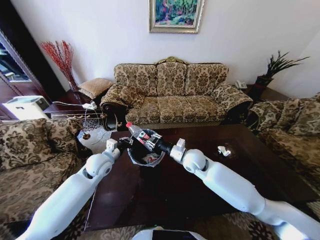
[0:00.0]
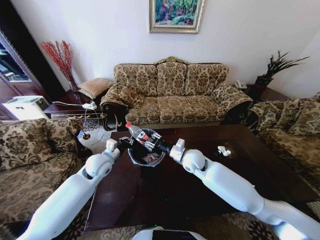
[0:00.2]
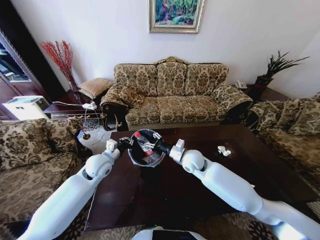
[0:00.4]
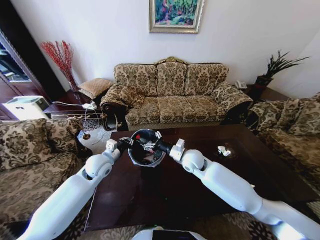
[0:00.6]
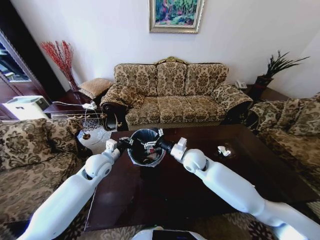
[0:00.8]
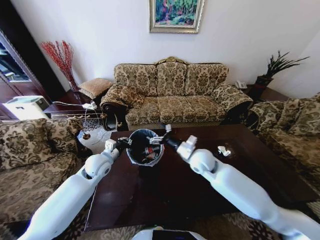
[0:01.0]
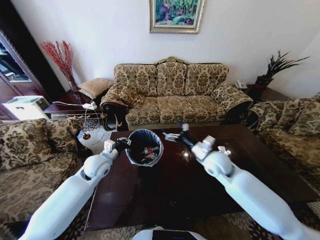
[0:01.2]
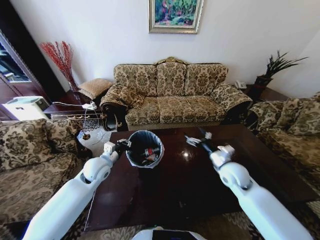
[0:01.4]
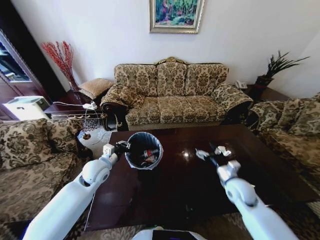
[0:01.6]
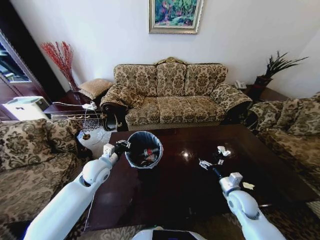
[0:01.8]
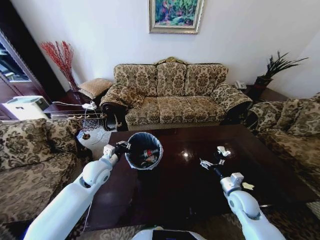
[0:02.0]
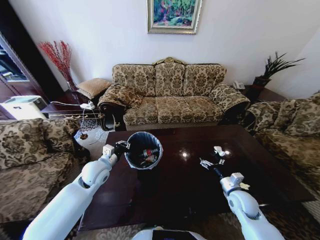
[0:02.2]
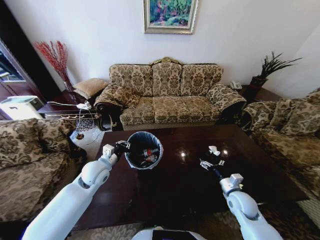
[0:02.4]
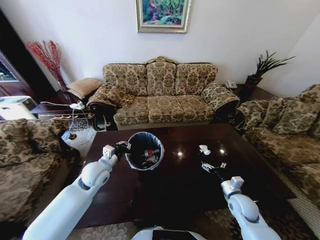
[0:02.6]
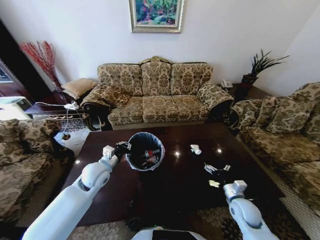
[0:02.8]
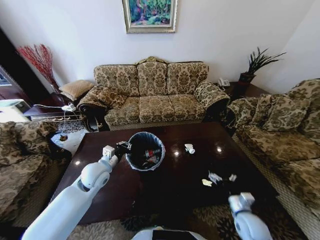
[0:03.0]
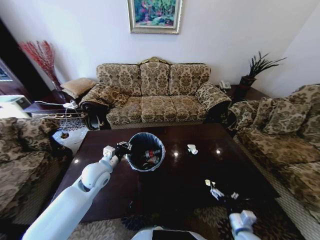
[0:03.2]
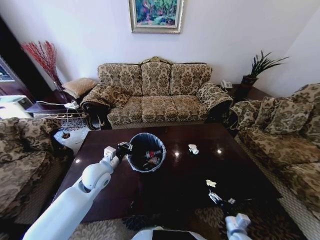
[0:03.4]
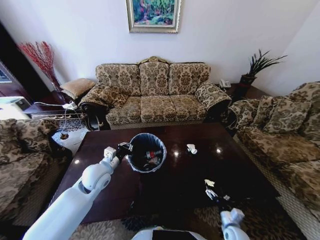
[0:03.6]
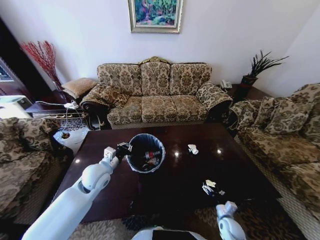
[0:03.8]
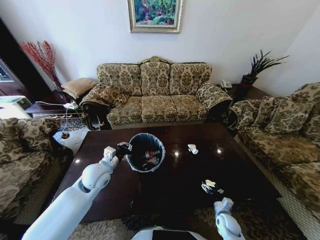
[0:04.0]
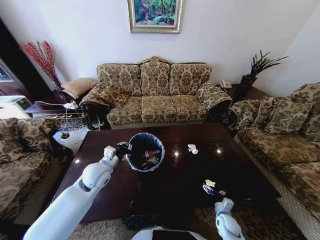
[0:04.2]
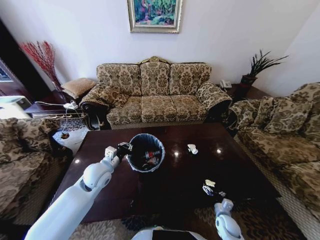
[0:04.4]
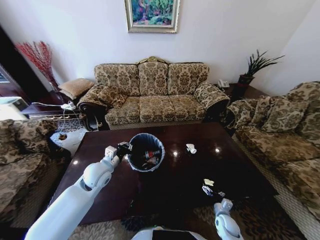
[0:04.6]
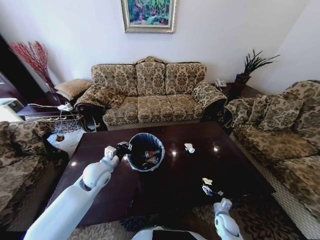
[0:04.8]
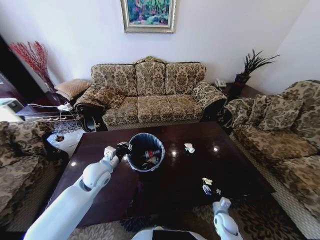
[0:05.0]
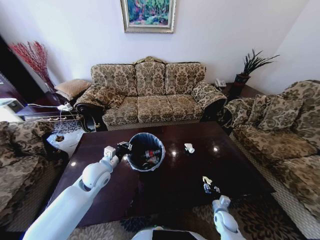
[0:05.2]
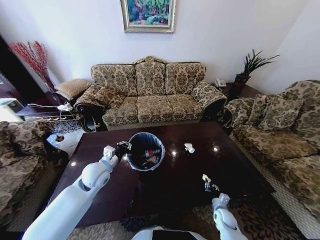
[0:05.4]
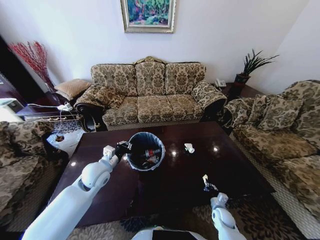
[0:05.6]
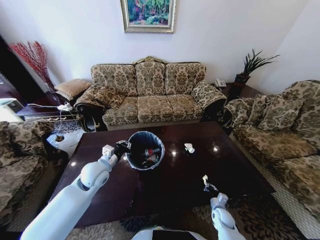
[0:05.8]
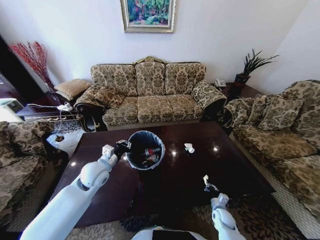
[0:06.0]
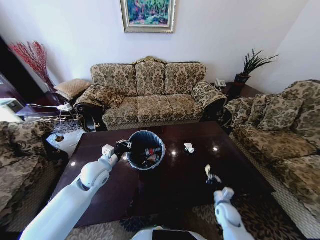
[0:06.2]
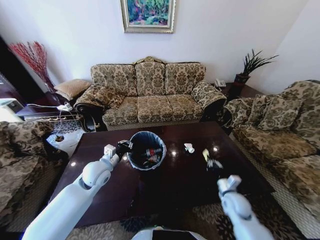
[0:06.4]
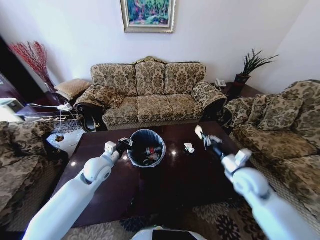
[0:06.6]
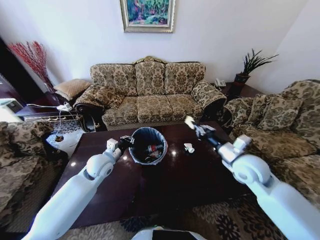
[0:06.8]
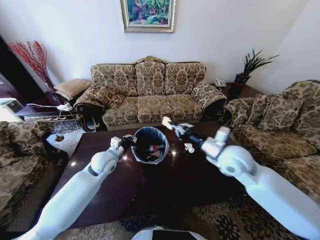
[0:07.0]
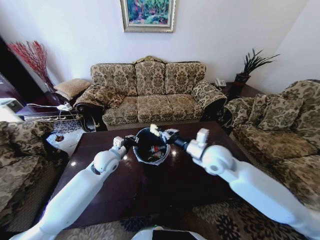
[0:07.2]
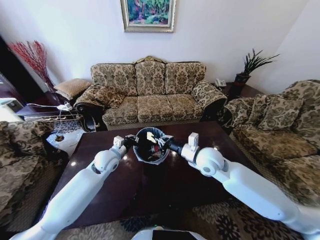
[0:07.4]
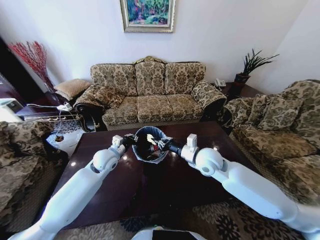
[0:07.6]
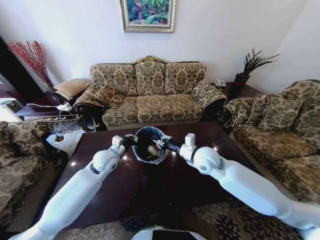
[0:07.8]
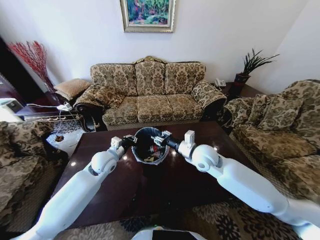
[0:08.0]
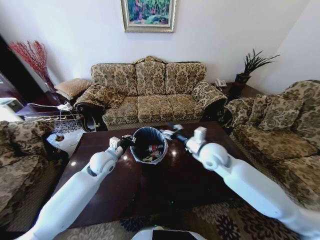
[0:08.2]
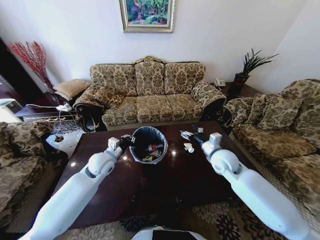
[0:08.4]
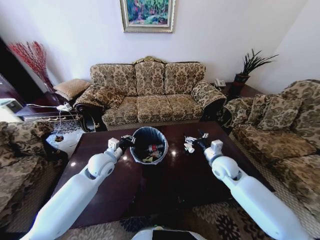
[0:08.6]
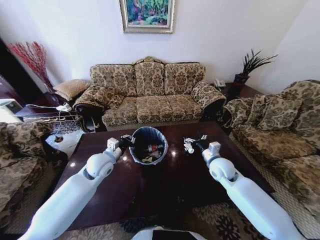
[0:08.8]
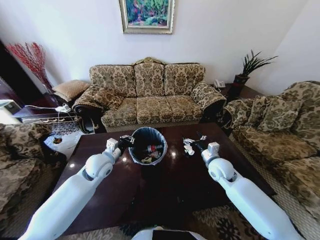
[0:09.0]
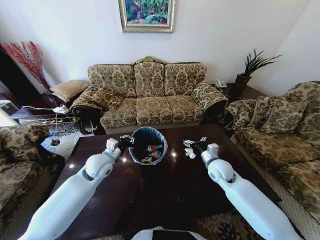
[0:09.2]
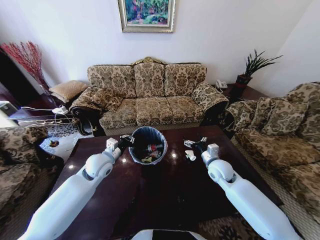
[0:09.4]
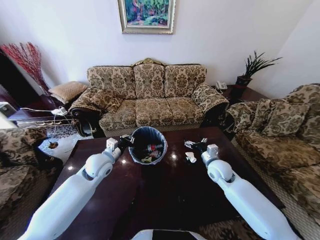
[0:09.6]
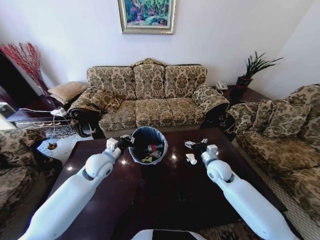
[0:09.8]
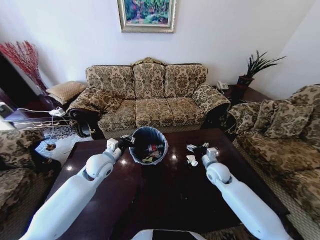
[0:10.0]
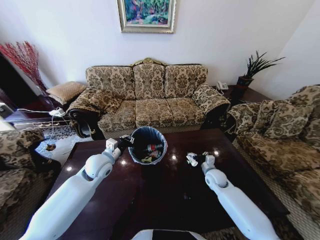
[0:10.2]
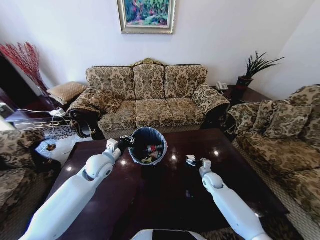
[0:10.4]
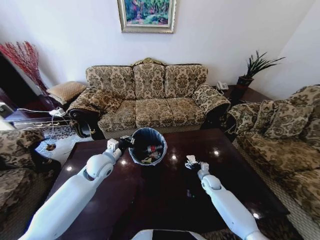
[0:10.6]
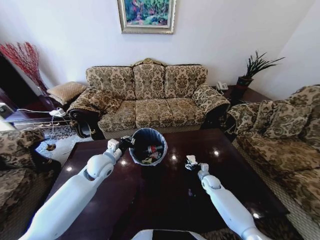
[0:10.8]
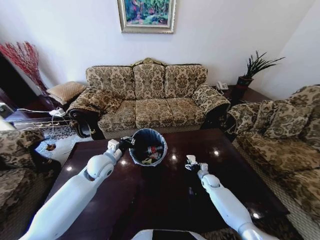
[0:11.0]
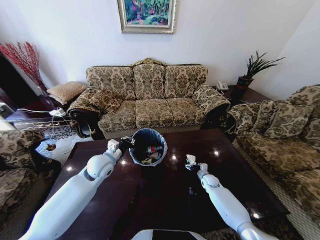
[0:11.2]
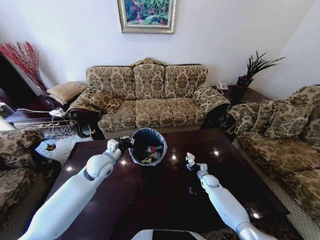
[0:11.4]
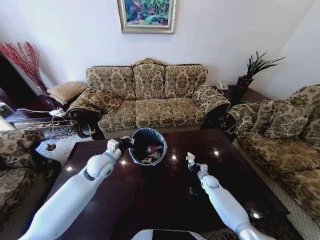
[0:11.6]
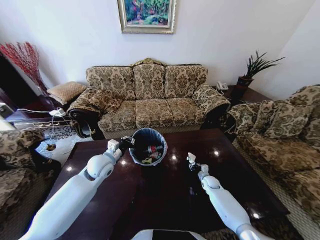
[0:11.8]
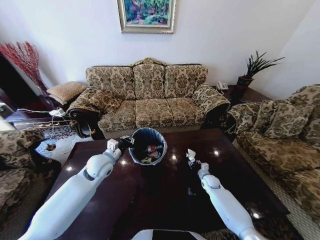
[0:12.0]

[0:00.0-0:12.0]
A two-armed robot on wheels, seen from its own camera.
Task of the whole recording: Move to the front of the table and place the trash on the table into the trash bin.
0:00.0 to 0:01.6: The right gripper goes some 20 cm to the right, backward and downward, and opens its fingers.
0:01.6 to 0:03.0: The right gripper shifts about 10 cm backward and downward.
0:03.0 to 0:04.4: The right gripper is displaced downward by approximately 15 cm.
0:04.4 to 0:06.0: The right gripper closes.
0:06.0 to 0:07.6: The left gripper shifts roughly 5 cm forward, while the right gripper shifts roughly 40 cm upward and to the left.
0:07.6 to 0:09.0: The right gripper shifts approximately 10 cm downward and to the right, and opens.
0:09.0 to 0:10.4: The right gripper moves downward, approximately 20 cm.
0:10.4 to 0:12.0: The right gripper moves roughly 5 cm, and closes its fingers.

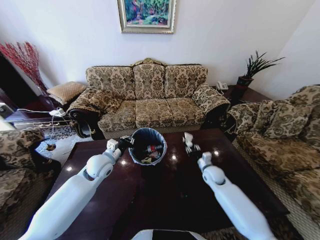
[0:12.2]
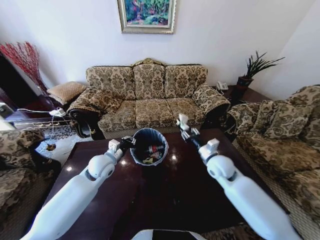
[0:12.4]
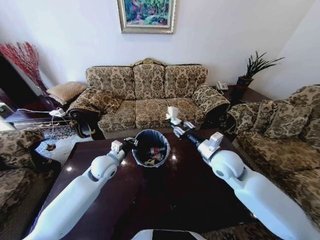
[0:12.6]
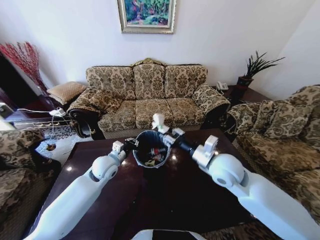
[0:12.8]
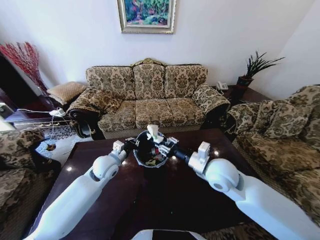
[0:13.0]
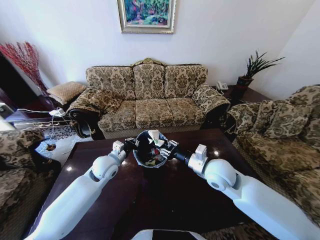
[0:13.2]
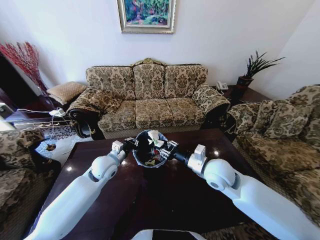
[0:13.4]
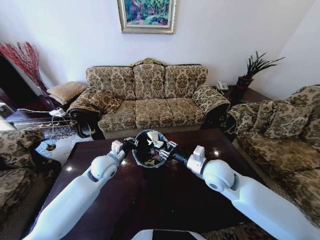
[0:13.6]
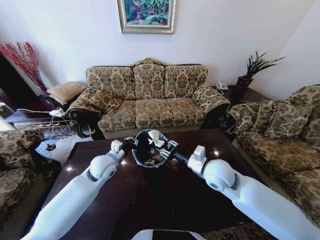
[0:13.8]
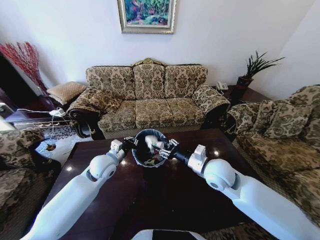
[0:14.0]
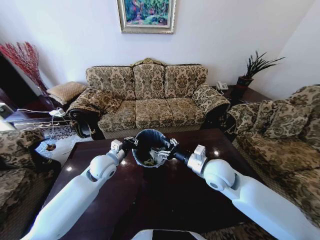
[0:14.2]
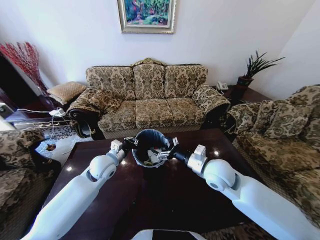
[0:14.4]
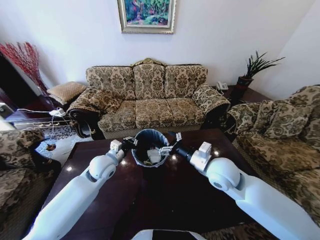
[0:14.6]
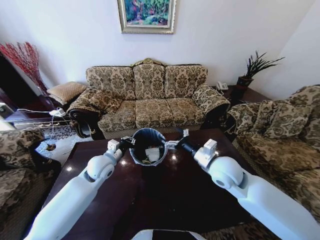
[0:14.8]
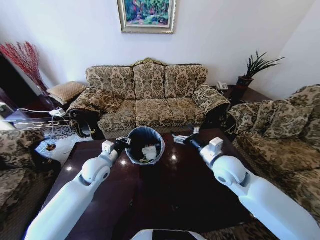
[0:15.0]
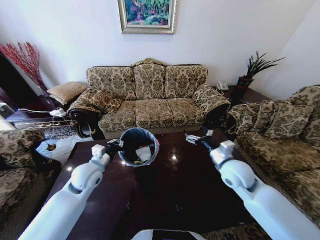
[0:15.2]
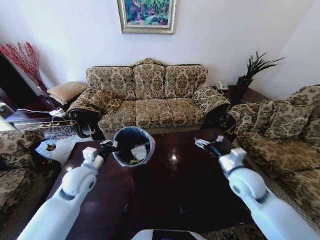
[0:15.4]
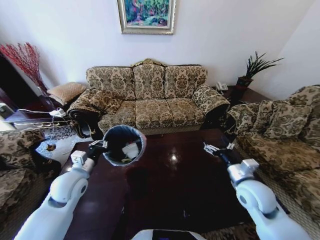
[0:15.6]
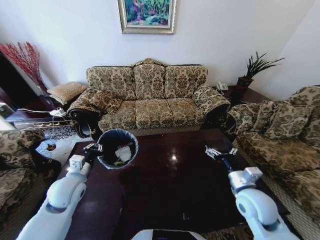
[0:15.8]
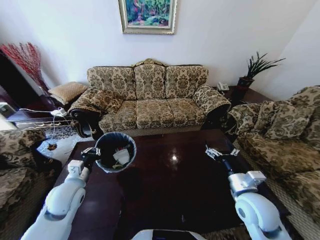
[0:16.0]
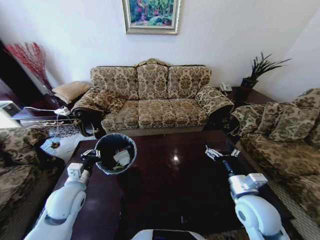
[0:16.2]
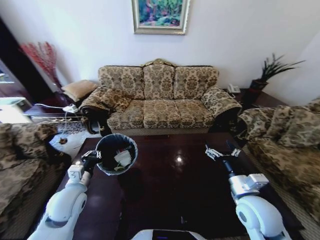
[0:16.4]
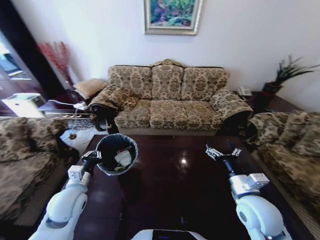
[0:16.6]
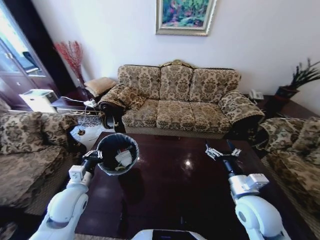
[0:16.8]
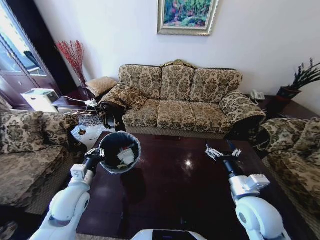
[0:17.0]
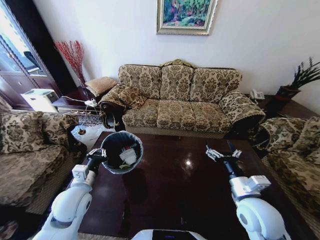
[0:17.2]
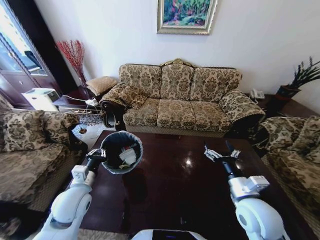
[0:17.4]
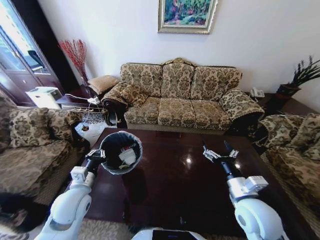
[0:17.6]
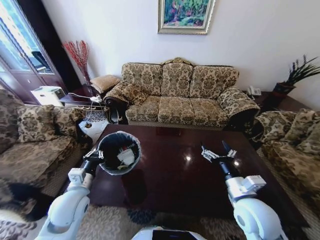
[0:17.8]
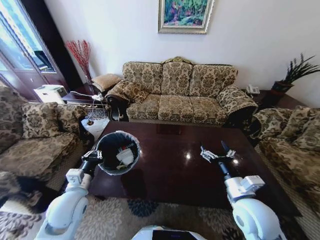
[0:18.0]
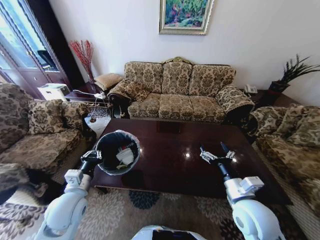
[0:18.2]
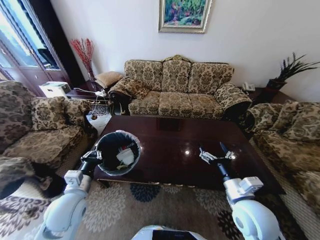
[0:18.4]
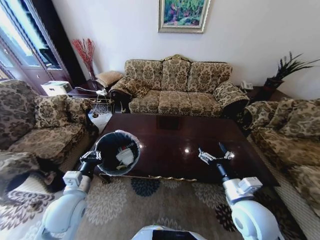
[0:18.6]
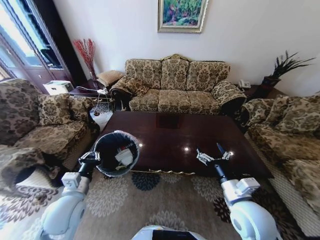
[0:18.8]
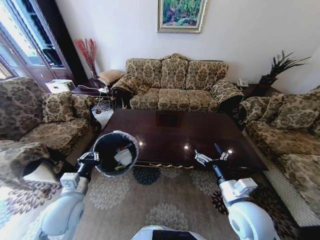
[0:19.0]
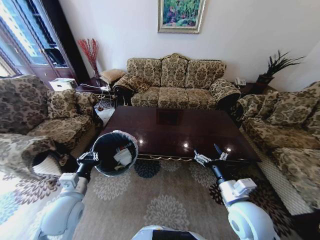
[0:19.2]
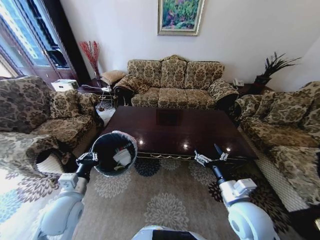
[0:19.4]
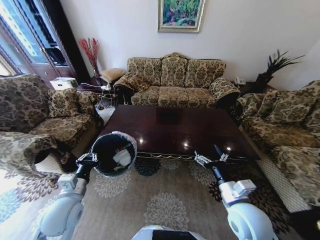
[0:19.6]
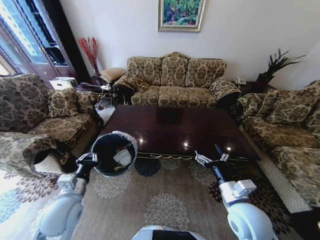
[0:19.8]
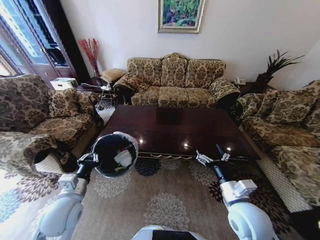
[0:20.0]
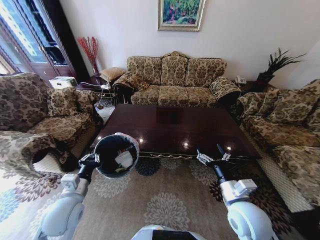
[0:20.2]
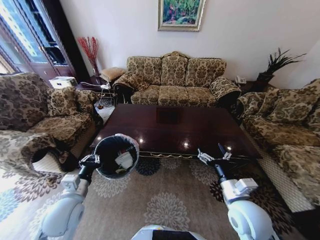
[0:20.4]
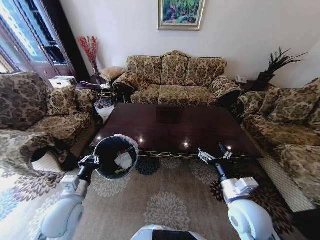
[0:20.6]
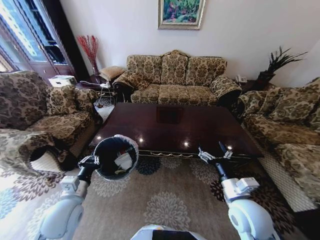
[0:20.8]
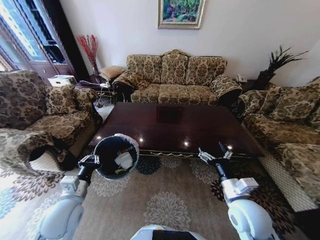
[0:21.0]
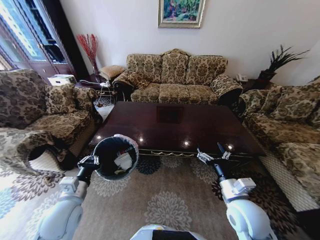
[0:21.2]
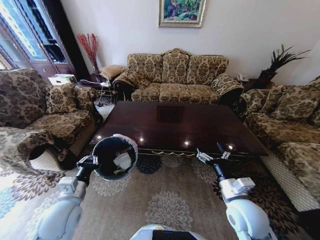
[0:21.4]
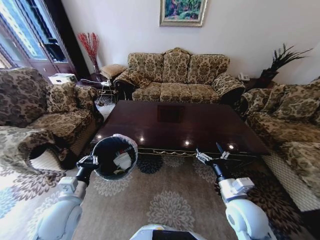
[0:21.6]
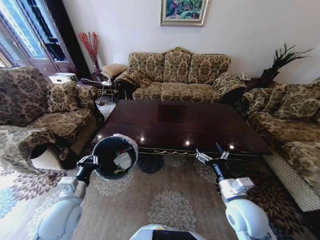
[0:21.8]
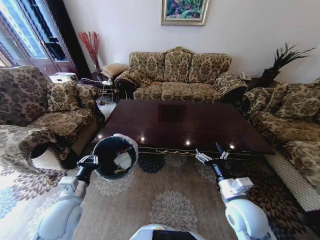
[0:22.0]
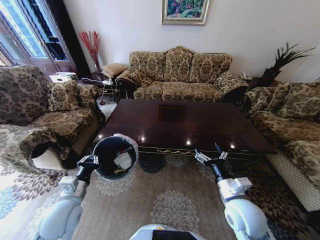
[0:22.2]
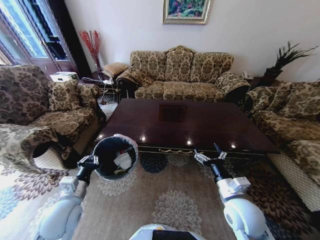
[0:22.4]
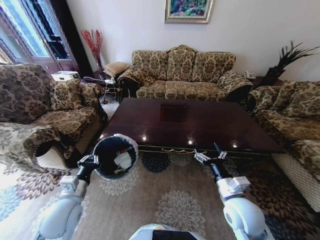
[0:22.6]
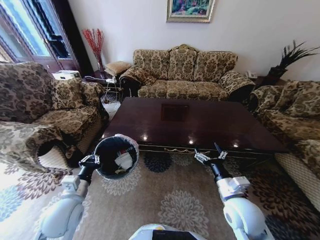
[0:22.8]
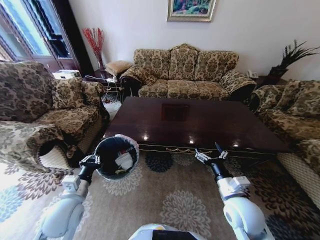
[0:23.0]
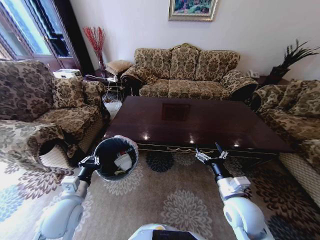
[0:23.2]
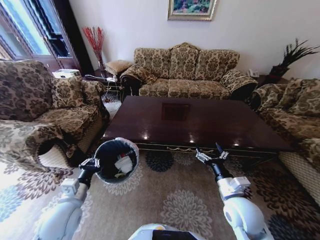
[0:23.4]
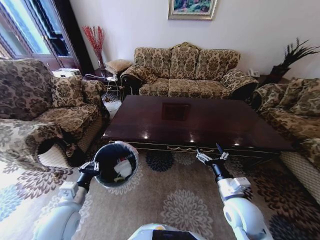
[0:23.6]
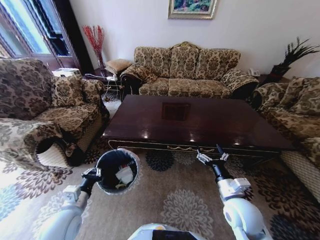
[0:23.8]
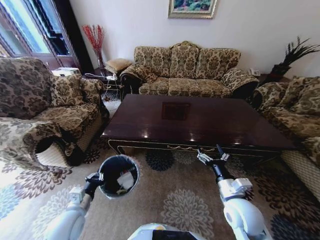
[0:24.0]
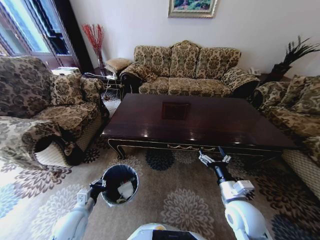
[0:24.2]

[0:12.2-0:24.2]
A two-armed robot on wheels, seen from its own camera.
Task of the whole recording: Move to the front of the table and place the trash on the table into the trash bin.
0:12.2 to 0:13.8: The right gripper is displaced upward, backward and to the left by approximately 25 cm.
0:13.8 to 0:15.2: The left gripper shifts by approximately 5 cm; the right gripper heads to the right, covering roughly 5 cm, and opens its fingers.
0:15.2 to 0:16.6: The two grippers go about 10 cm backward.
0:22.6 to 0:24.2: The left gripper moves downward, about 10 cm.
